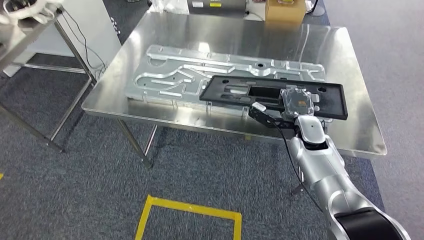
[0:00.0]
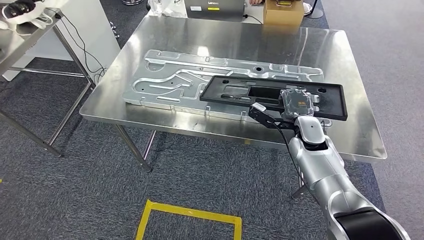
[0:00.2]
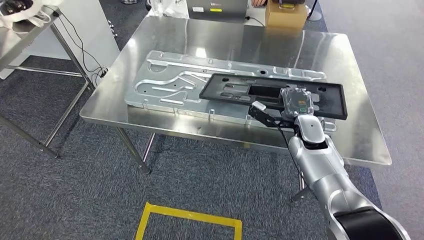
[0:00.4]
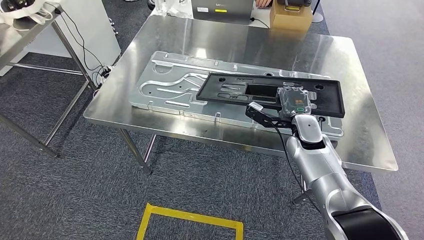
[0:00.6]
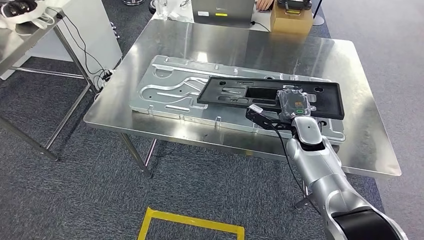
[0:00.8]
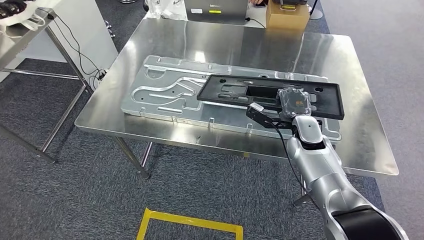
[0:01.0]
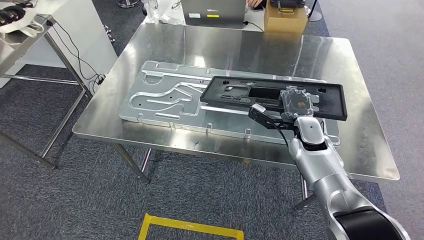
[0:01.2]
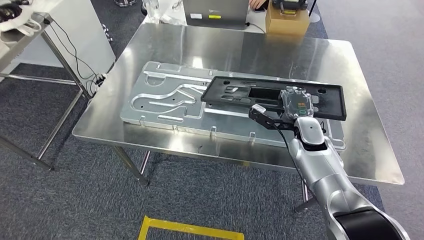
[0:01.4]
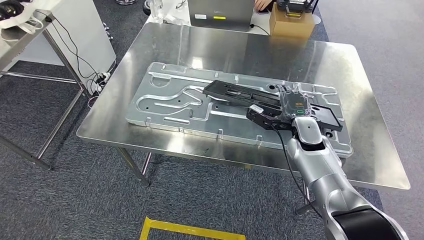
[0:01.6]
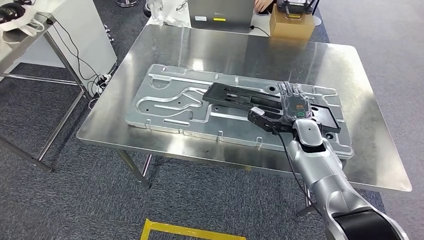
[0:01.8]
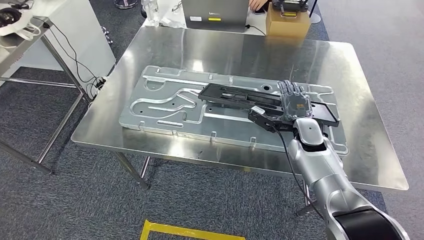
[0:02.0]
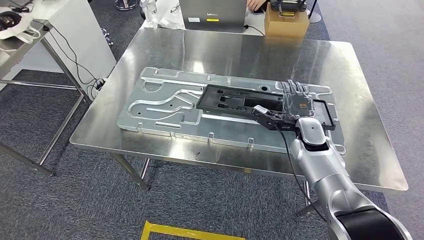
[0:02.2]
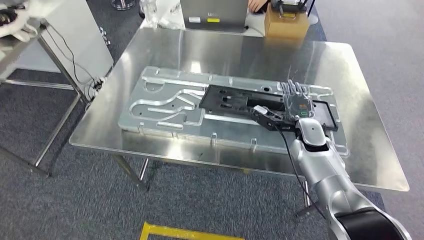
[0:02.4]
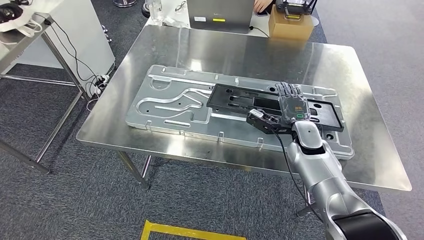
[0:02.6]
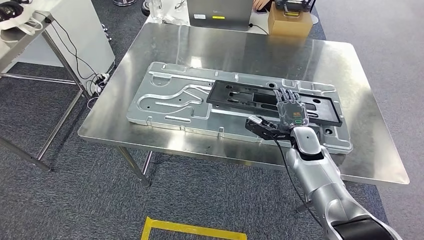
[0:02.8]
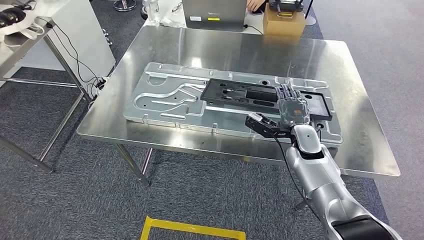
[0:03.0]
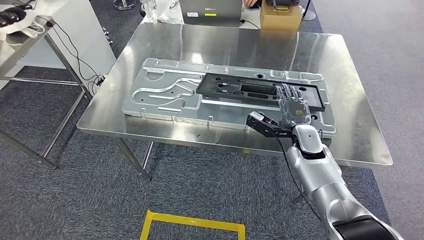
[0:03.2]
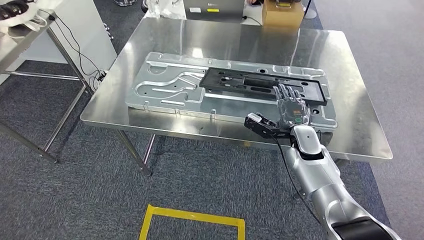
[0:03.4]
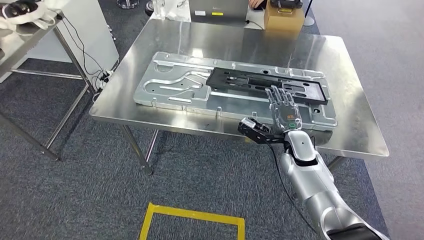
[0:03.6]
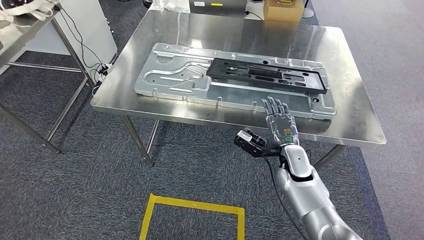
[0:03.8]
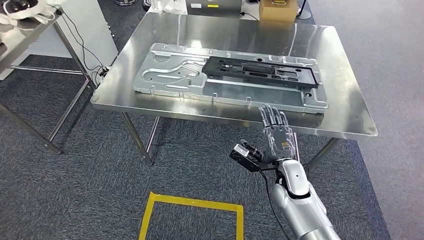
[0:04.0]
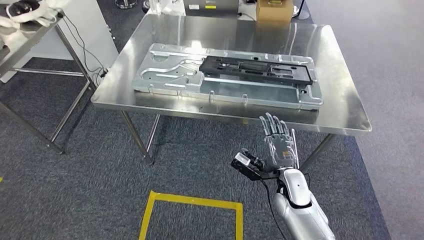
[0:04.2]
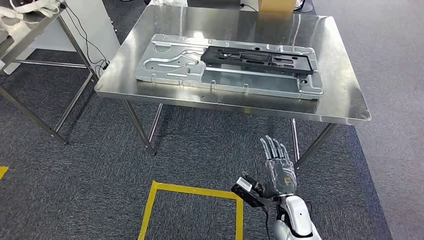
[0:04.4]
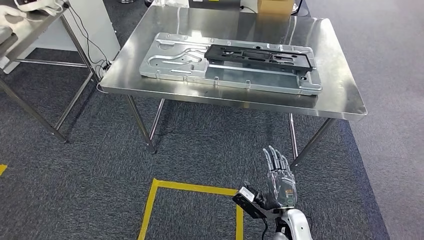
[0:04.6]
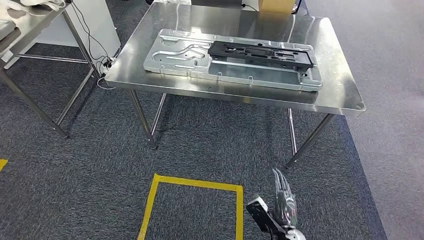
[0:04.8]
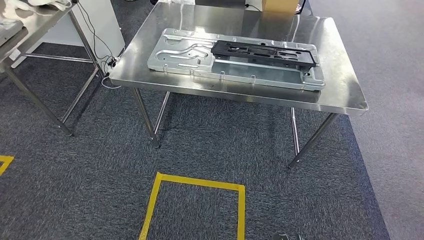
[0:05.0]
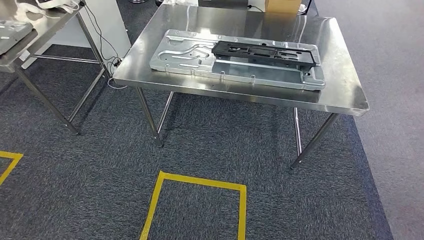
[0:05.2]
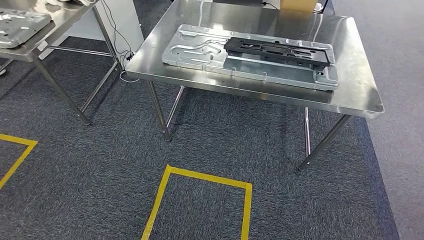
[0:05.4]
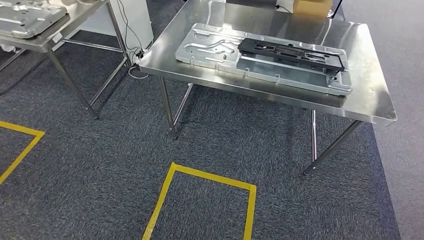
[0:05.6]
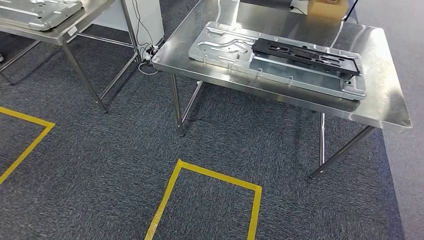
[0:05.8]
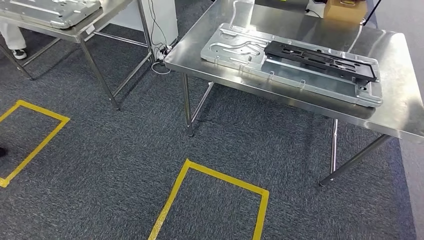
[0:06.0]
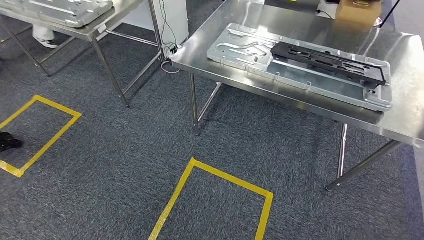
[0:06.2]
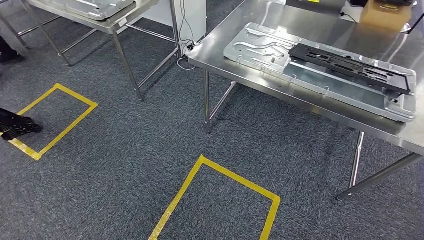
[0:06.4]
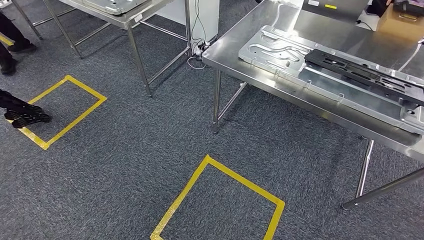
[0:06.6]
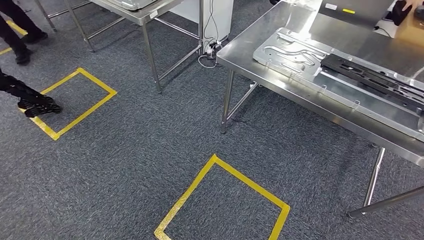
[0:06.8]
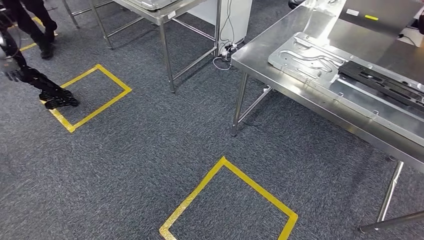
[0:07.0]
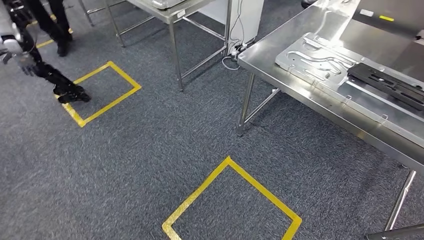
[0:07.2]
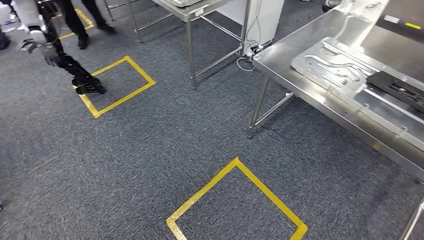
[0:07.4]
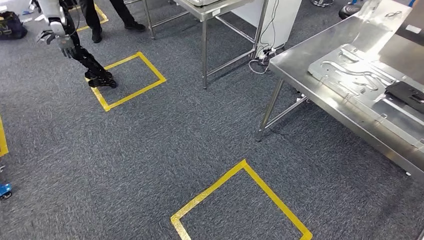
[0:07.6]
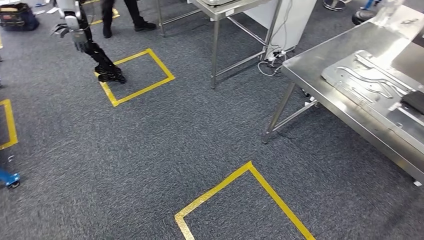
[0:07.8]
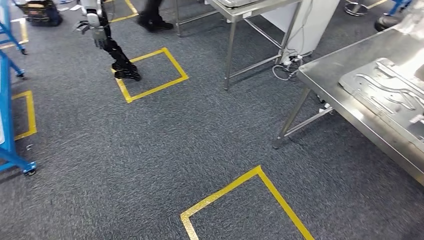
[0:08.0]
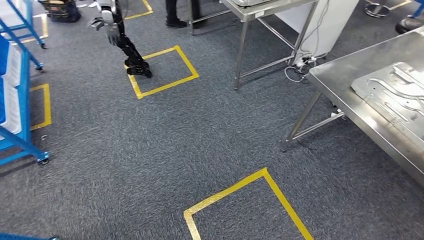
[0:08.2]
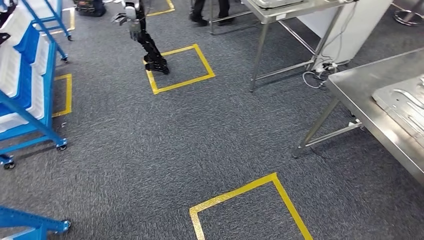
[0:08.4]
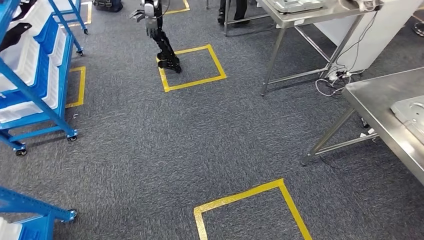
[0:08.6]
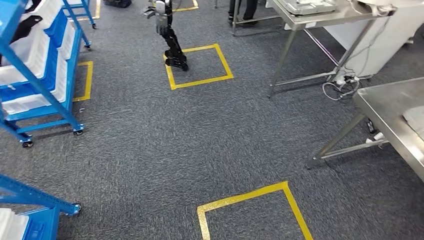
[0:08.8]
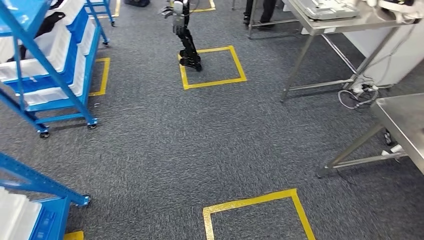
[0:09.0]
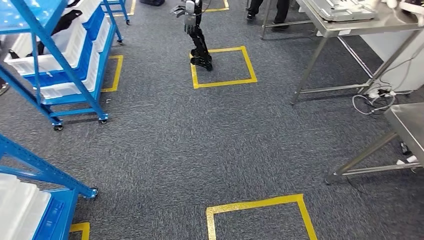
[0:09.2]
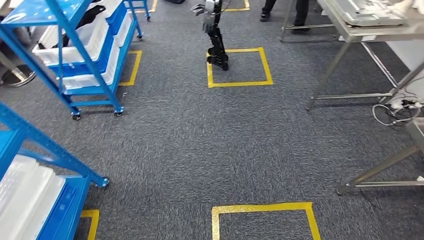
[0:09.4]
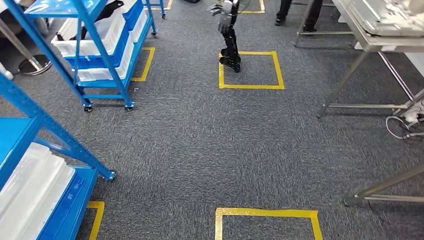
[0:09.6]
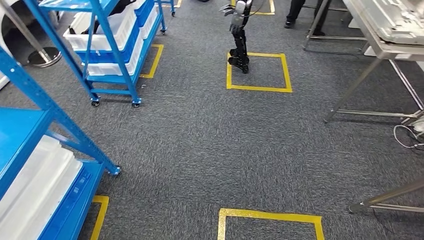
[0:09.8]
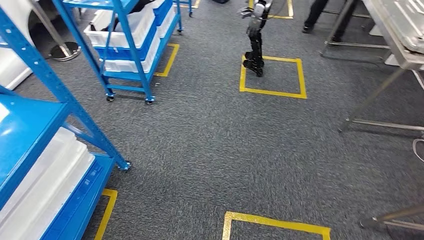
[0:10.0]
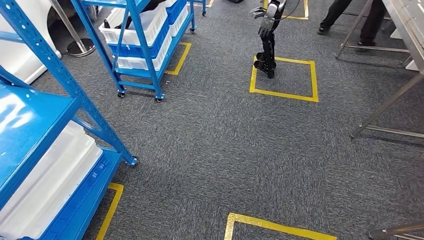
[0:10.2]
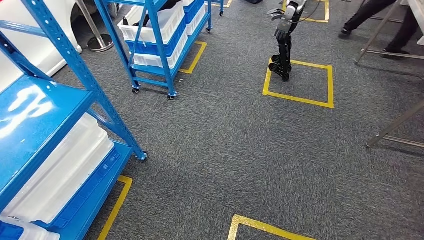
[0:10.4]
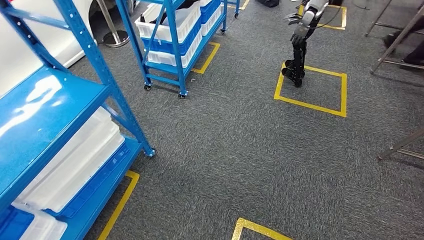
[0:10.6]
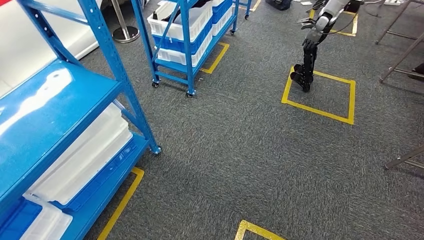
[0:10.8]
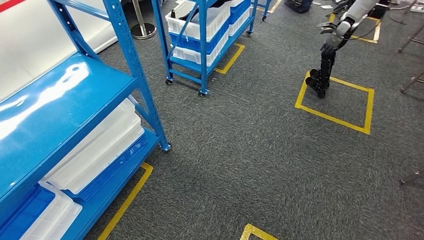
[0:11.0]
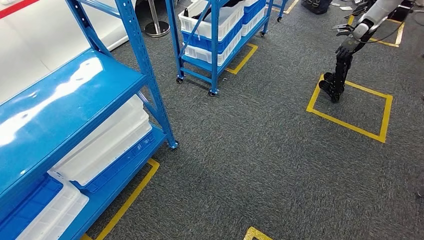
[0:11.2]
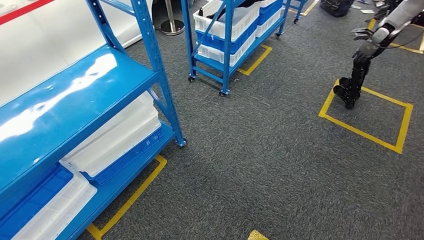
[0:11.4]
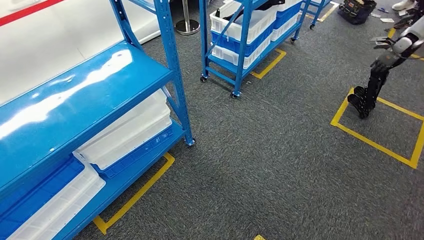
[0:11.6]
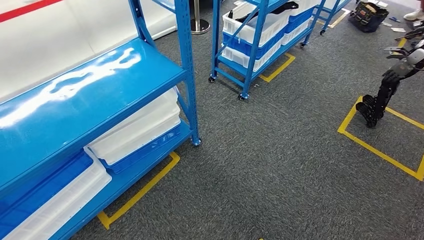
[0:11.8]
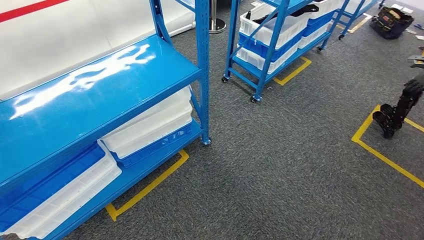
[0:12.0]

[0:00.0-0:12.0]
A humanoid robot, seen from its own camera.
Step, 0:00.4 to 0:04.6: Insert the large material into the corresponding slot on the workbench.

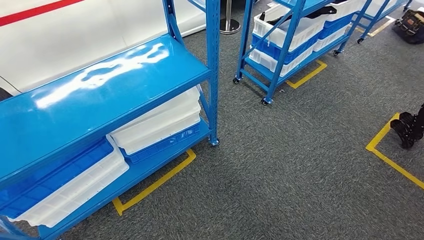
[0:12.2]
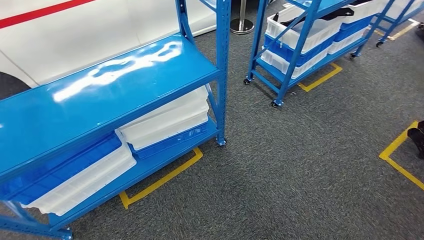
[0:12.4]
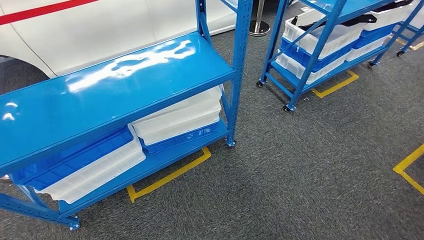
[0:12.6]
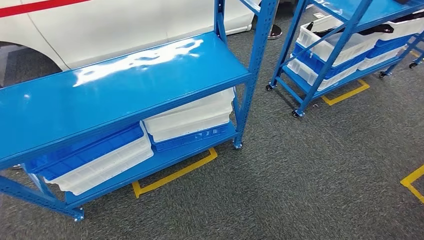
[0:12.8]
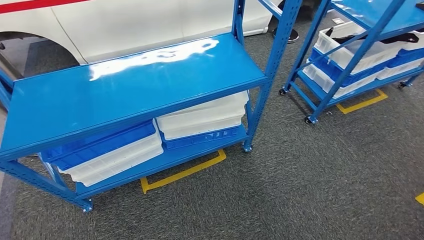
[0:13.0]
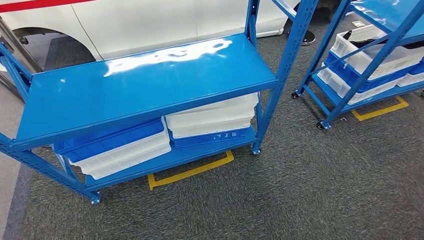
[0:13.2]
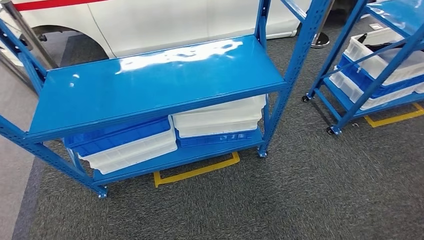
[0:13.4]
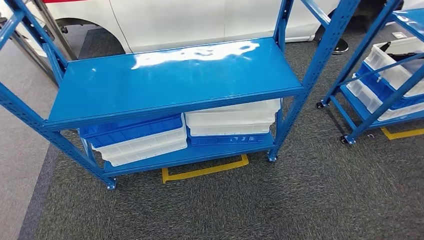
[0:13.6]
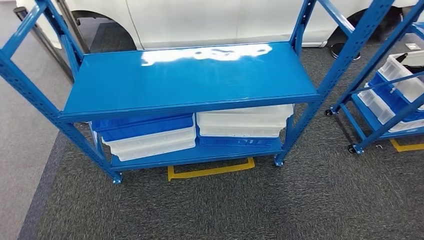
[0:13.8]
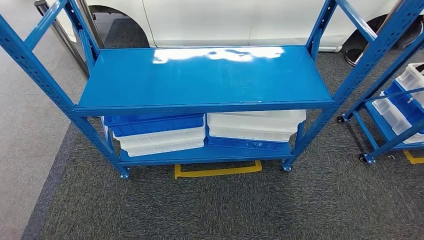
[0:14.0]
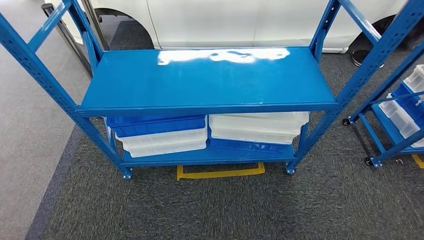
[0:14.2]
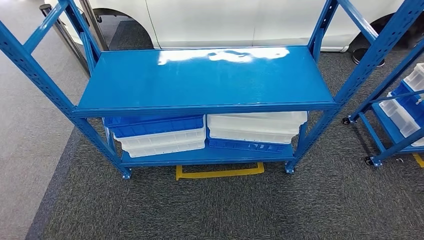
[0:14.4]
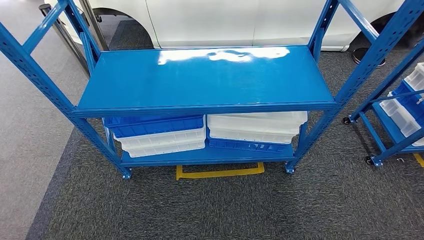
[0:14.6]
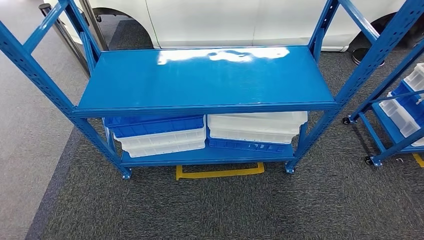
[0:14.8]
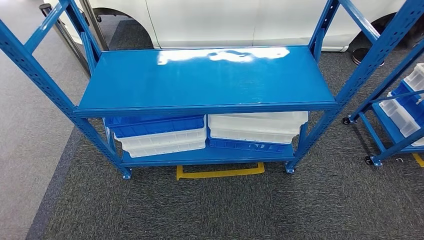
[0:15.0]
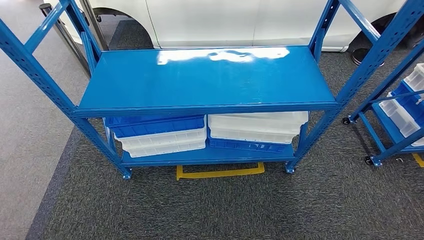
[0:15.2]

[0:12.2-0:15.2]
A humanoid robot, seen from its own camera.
Step, 0:12.2 to 0:15.2: Move to the initial position of the shelf.
